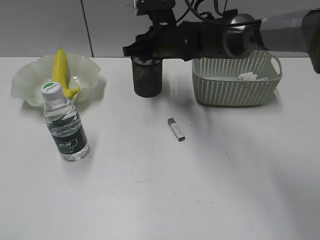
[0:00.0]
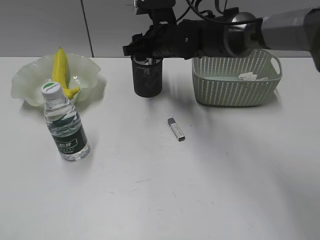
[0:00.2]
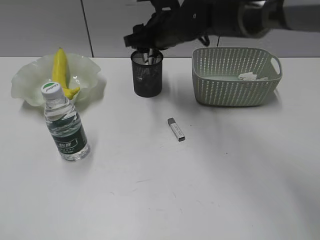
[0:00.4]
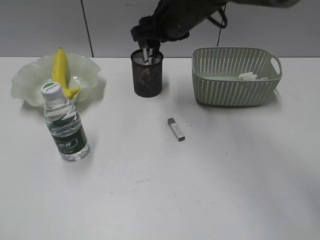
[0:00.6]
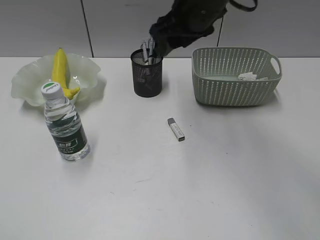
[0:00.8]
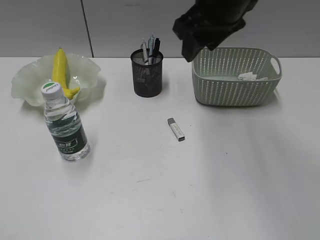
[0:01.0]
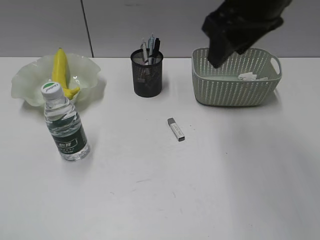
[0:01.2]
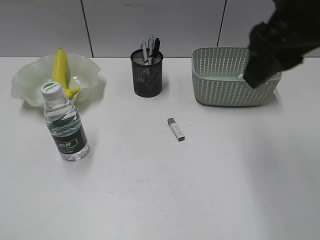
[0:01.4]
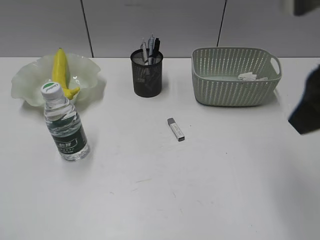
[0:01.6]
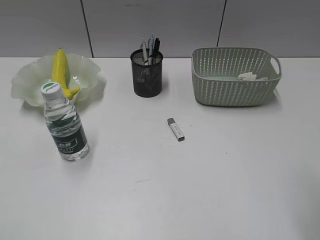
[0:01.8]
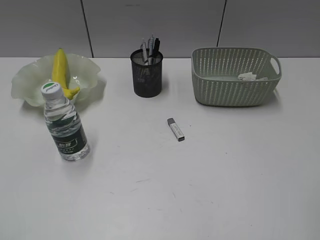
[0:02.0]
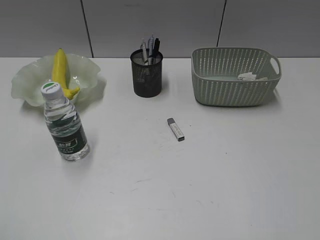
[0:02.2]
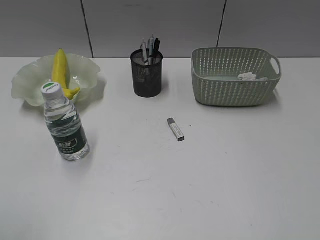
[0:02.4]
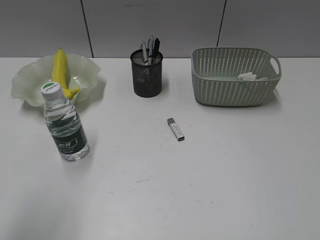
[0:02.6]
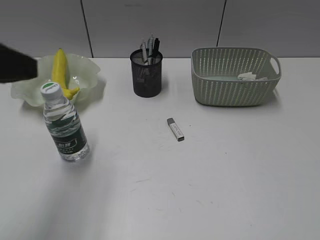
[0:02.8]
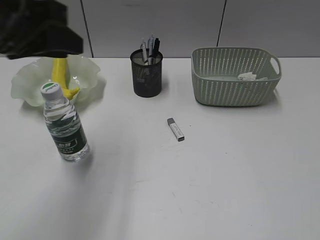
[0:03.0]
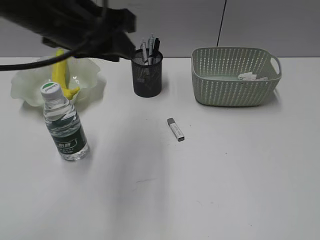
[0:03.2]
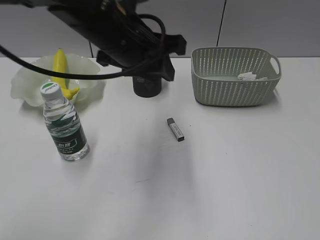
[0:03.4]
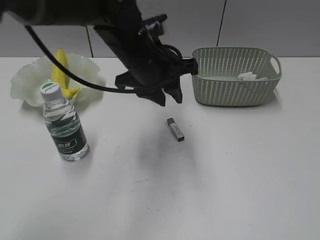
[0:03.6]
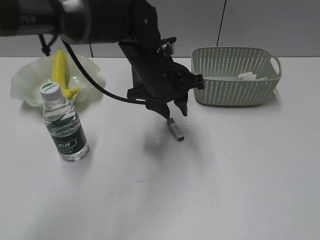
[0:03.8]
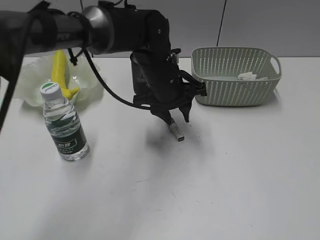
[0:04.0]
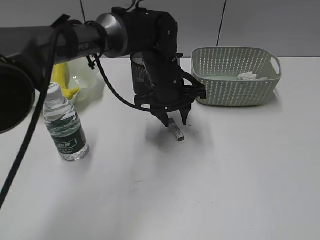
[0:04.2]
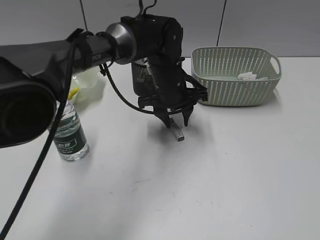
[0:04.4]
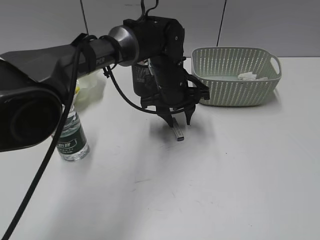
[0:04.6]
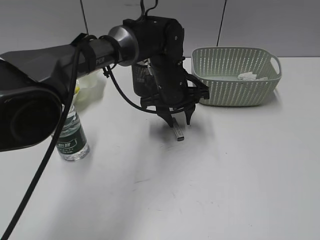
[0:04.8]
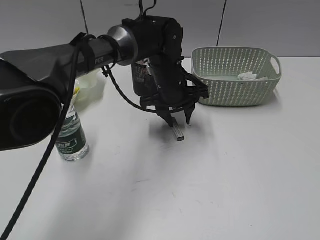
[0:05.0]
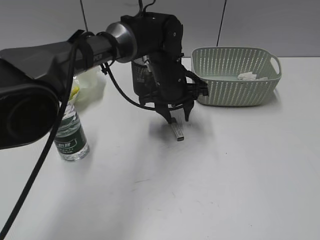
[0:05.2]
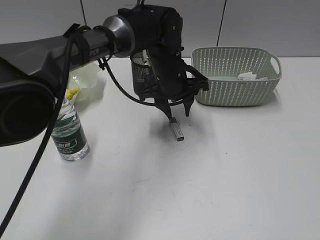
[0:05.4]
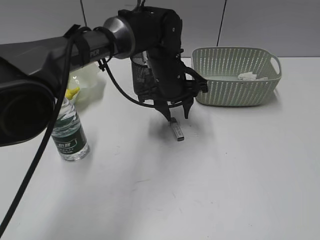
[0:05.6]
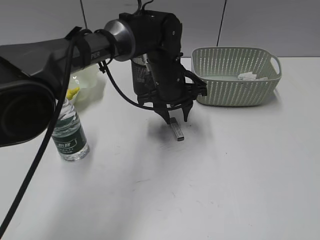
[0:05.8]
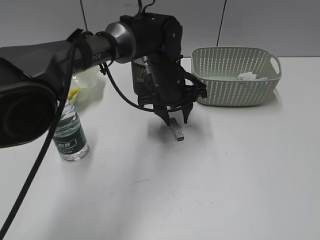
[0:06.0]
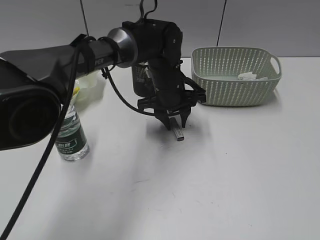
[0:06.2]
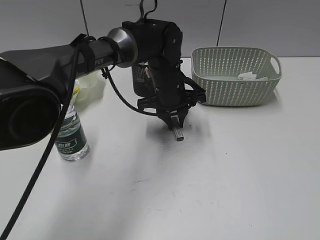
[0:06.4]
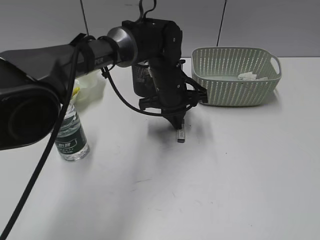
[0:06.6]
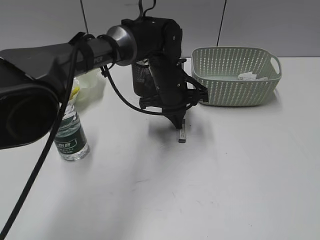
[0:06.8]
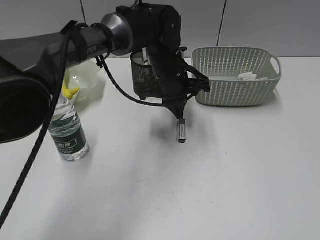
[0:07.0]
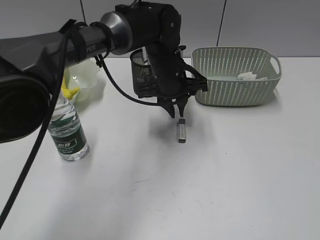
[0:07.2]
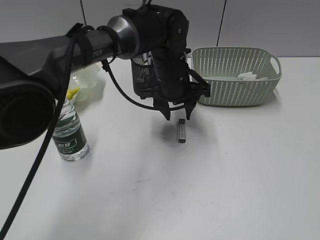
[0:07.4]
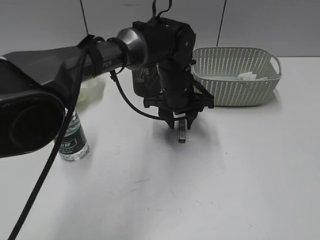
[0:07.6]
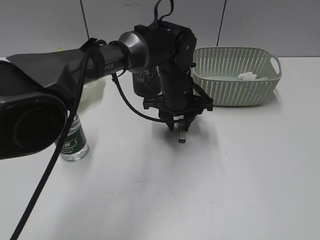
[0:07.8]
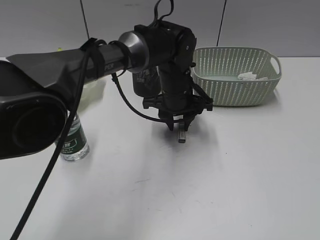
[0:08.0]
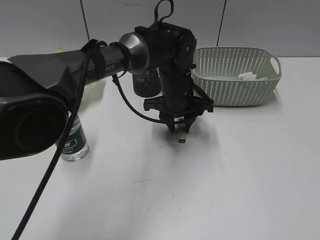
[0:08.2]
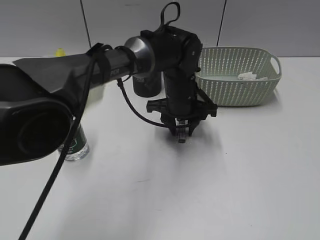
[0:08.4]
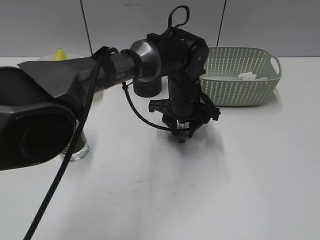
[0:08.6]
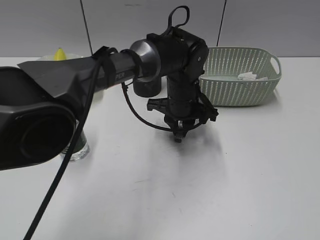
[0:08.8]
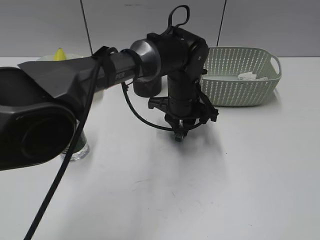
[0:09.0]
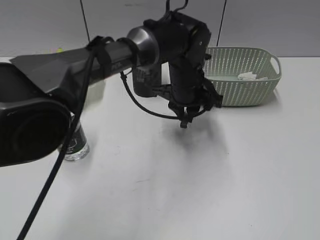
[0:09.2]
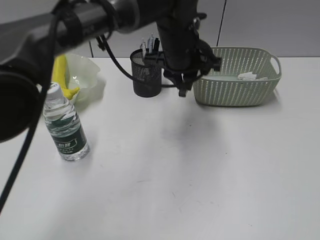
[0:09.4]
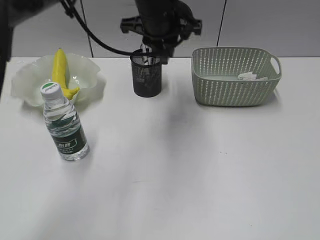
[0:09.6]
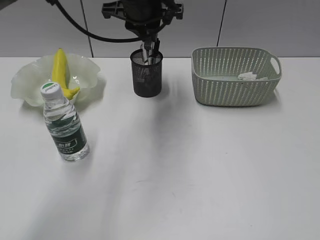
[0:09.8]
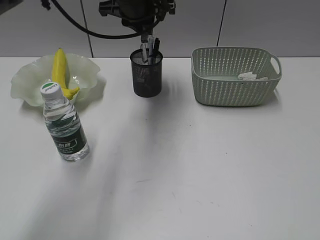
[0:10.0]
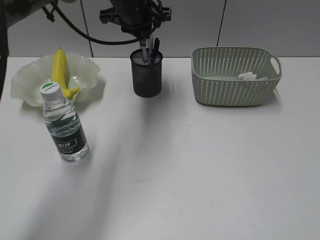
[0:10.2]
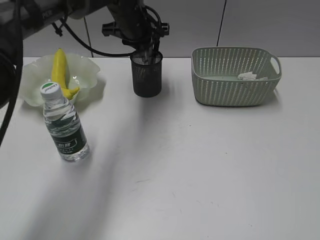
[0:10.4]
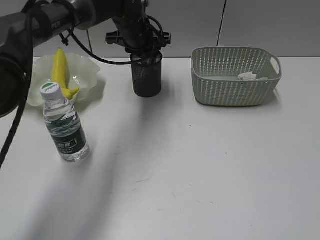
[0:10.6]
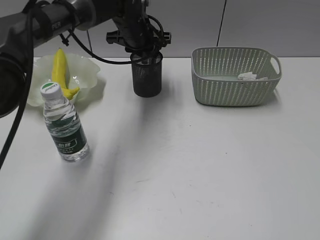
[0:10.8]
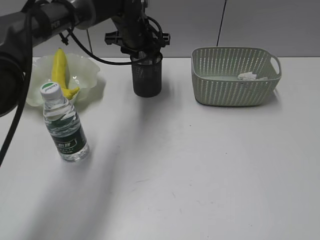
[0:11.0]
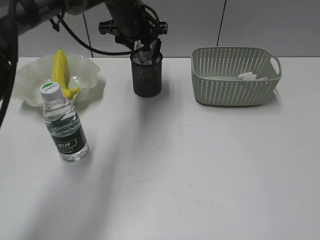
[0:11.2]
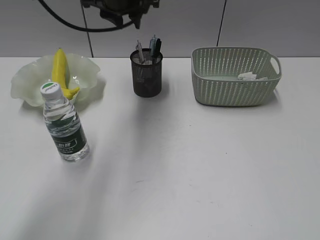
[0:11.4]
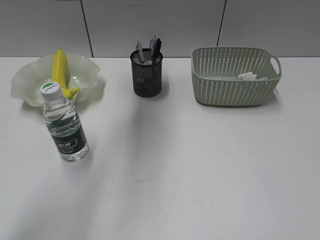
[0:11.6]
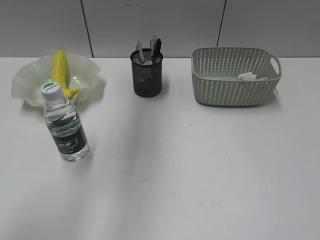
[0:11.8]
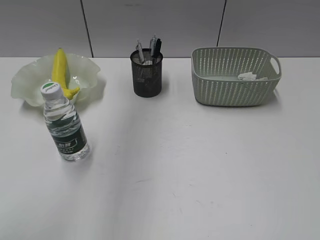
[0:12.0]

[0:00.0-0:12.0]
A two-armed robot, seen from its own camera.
Step, 0:00.4 to 0:08.8: Grasp the eraser with left gripper.
Step, 0:09.0 to 0:11.2: Place the eraser in pen holder with left gripper.
0:00.0 to 0:01.6: The right gripper heads backward, upward and to the right, covering some 35 cm, and opens up.
0:01.6 to 0:03.0: The right gripper moves backward and to the right, about 25 cm; the left gripper moves forward and to the right, roughly 25 cm.
0:03.0 to 0:04.4: The left gripper shifts about 35 cm to the right, downward and forward.
0:04.4 to 0:06.0: There are only small adjustments of the grippers.
0:06.0 to 0:07.6: The left gripper closes, then opens again.
0:07.6 to 0:09.0: The left gripper closes up.
0:09.0 to 0:10.4: The left gripper shifts some 20 cm forward, upward and to the left.
0:10.4 to 0:12.0: The left gripper shifts approximately 30 cm upward and backward.

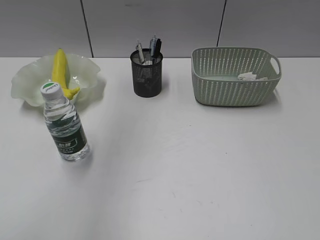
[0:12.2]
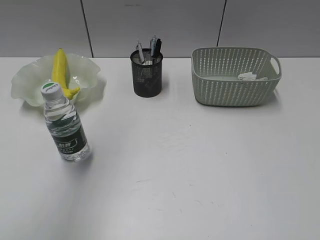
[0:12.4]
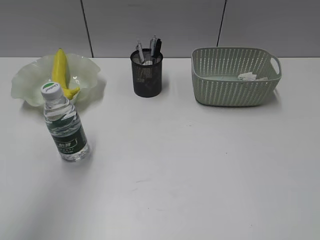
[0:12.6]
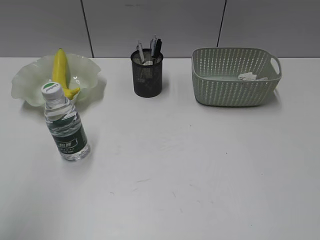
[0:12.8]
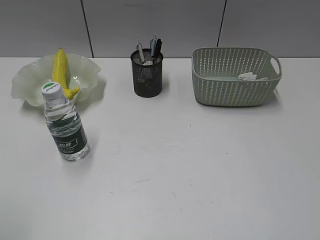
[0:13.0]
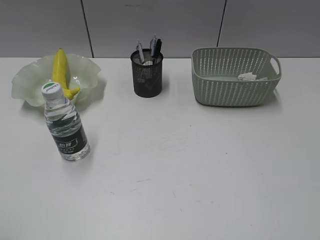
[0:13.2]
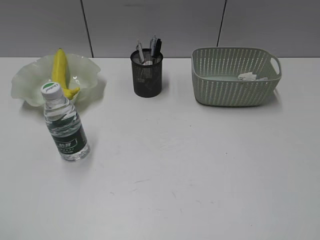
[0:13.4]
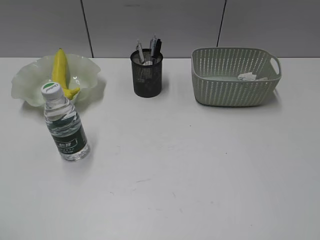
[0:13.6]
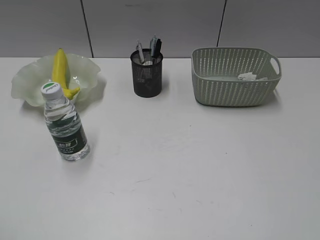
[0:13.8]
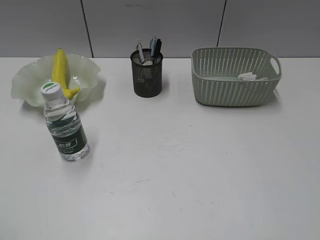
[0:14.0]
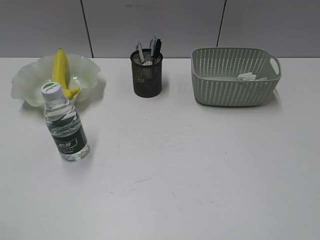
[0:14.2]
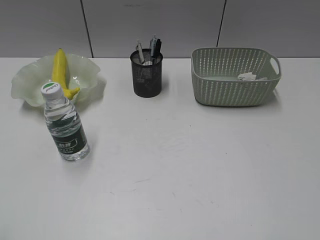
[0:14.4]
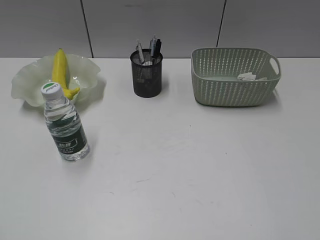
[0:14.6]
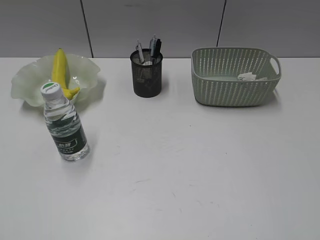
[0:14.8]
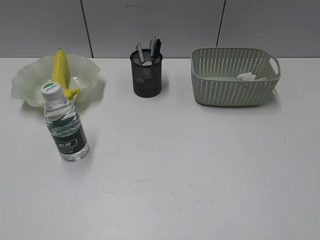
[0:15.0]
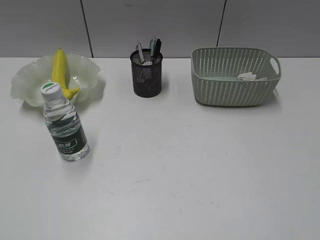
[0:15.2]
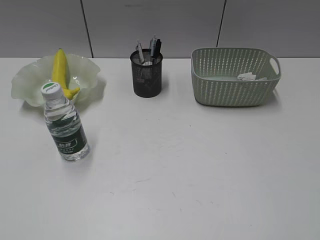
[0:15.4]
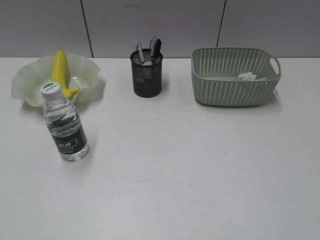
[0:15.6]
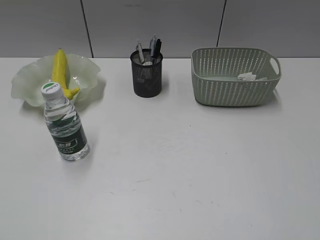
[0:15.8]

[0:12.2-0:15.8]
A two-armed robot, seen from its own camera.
0:12.2 to 0:14.0: The left gripper goes approximately 40 cm backward, downward and to the left.
